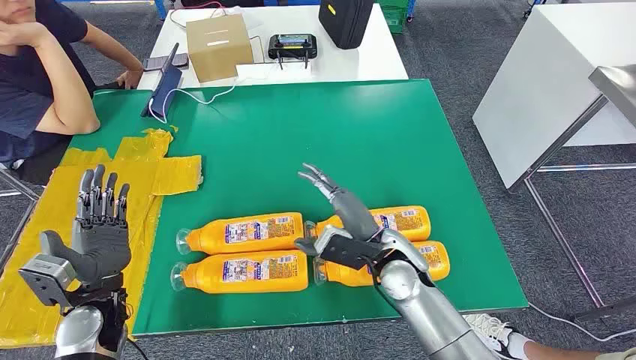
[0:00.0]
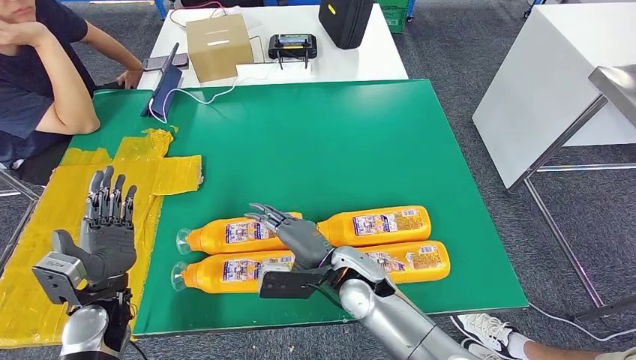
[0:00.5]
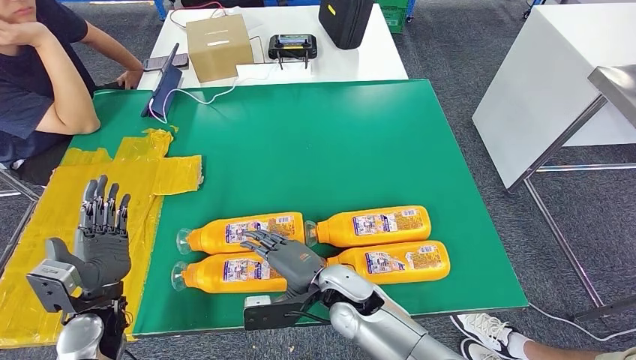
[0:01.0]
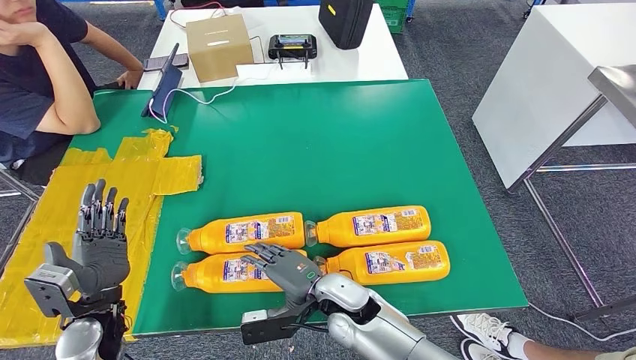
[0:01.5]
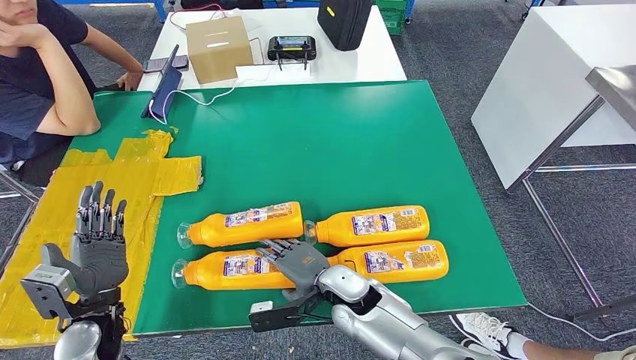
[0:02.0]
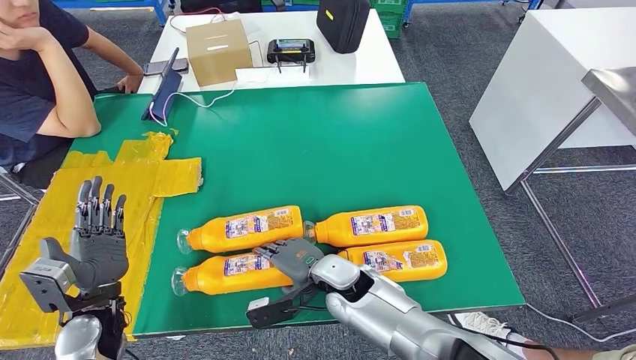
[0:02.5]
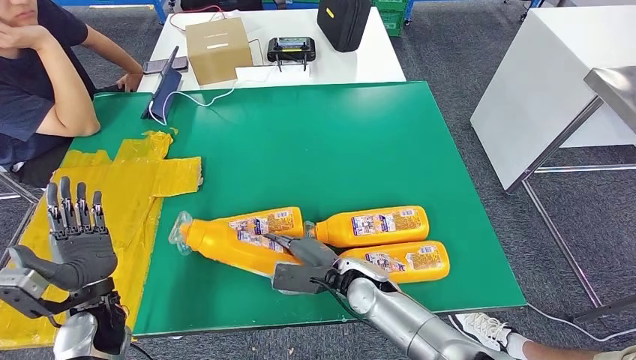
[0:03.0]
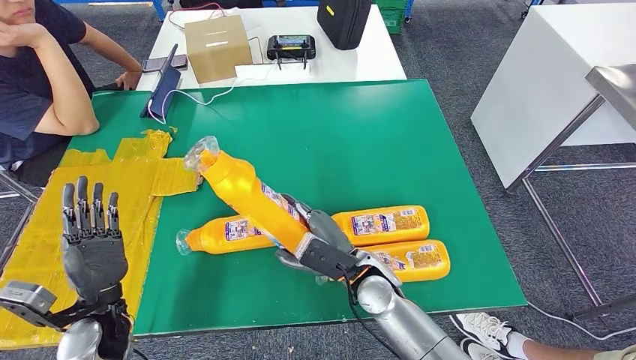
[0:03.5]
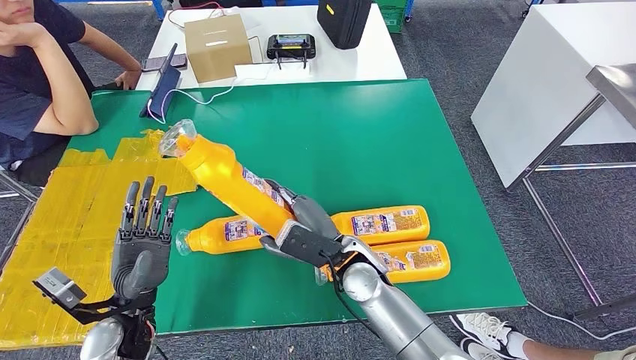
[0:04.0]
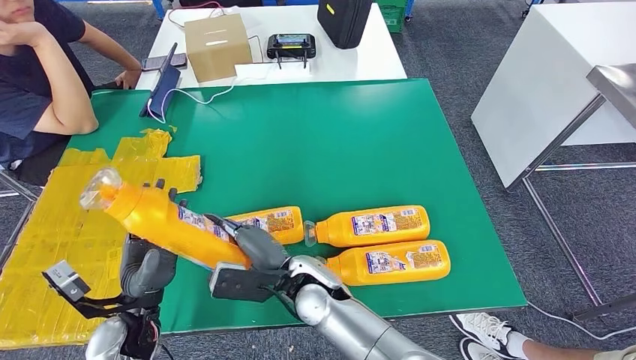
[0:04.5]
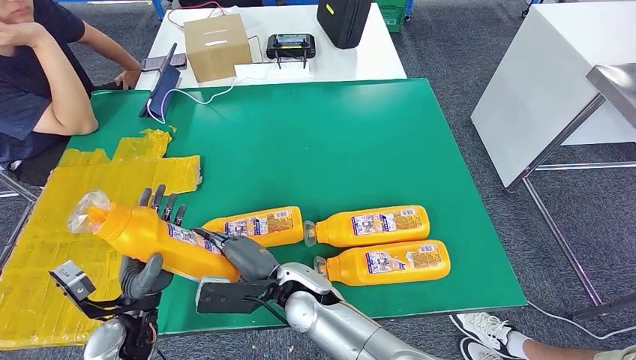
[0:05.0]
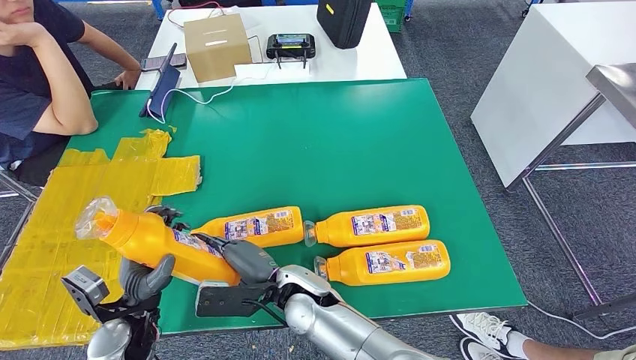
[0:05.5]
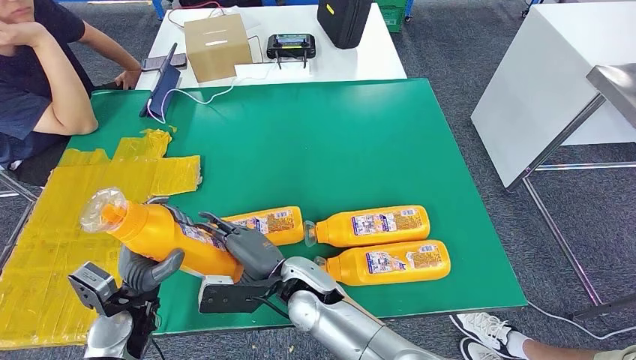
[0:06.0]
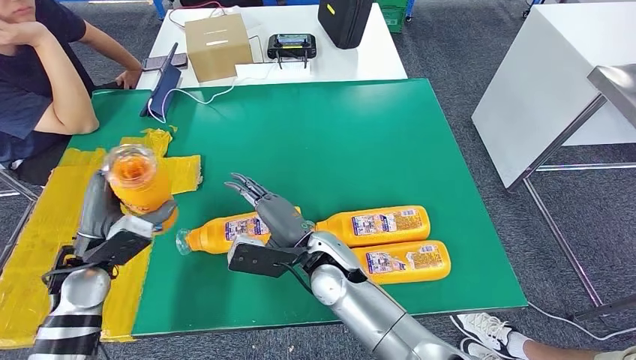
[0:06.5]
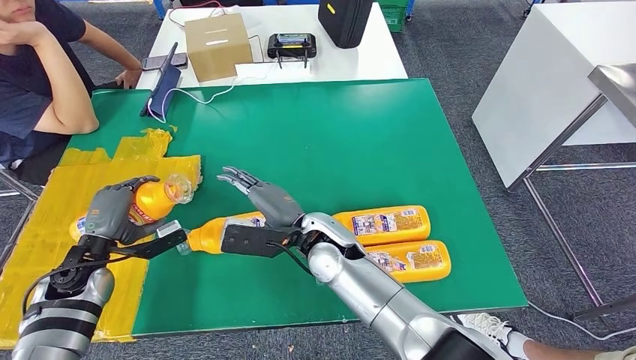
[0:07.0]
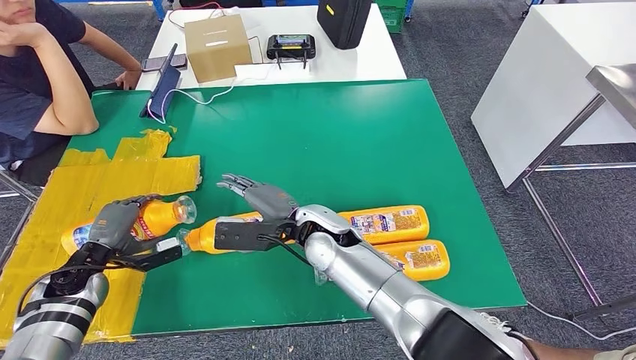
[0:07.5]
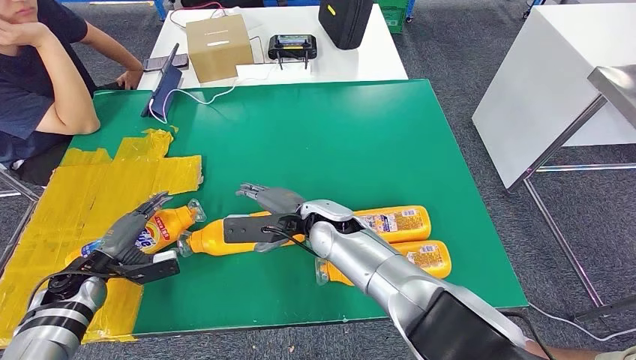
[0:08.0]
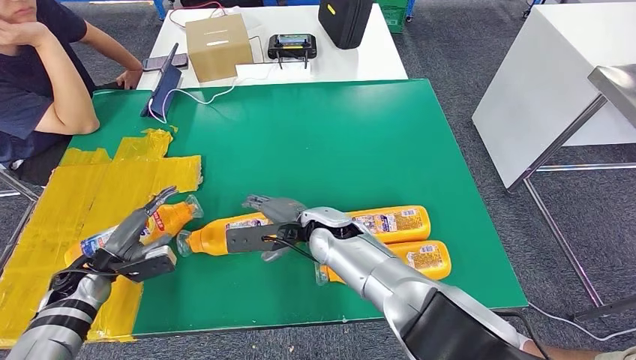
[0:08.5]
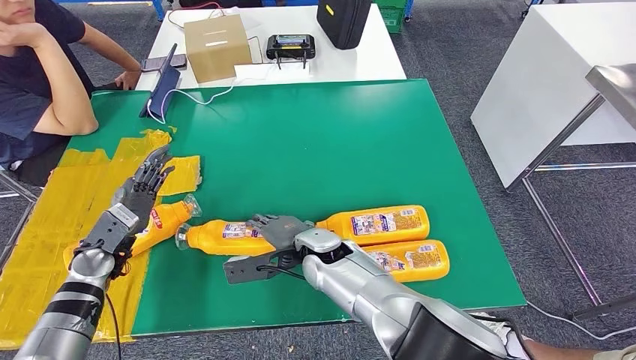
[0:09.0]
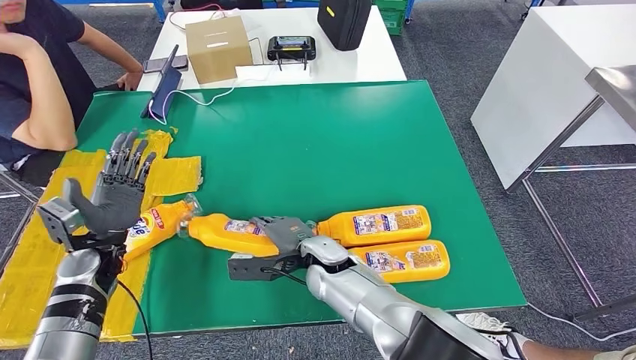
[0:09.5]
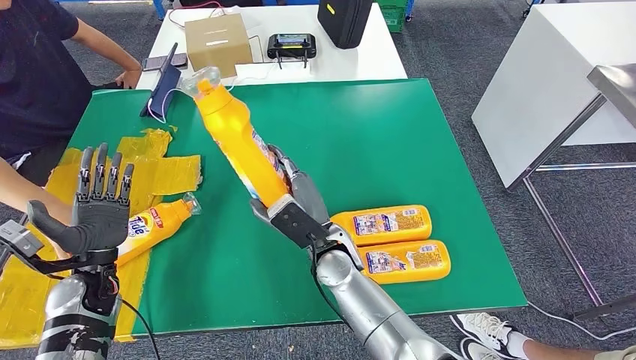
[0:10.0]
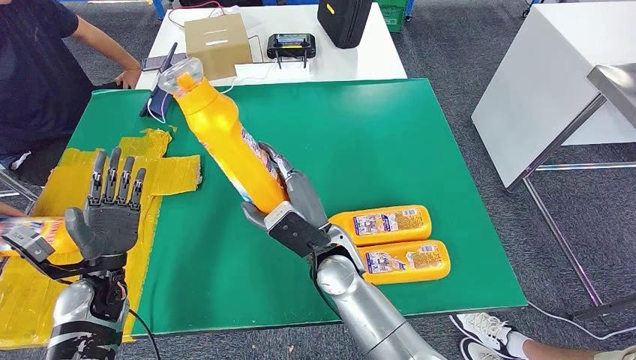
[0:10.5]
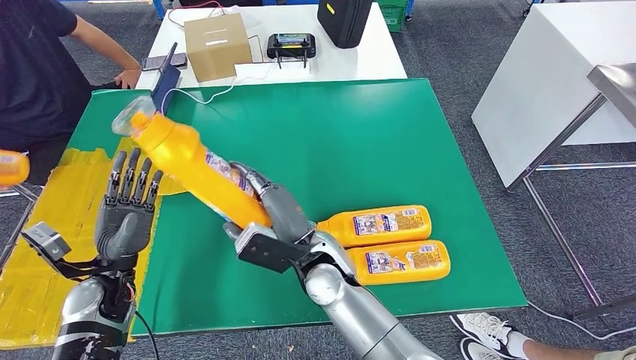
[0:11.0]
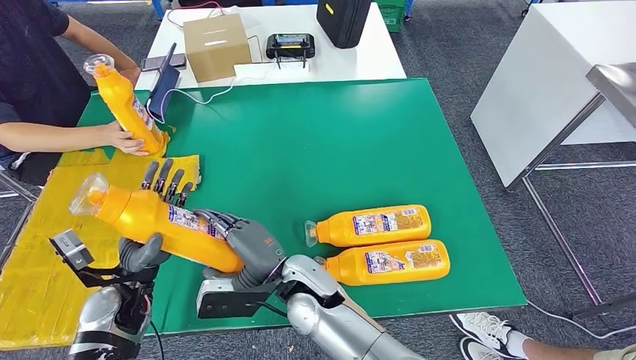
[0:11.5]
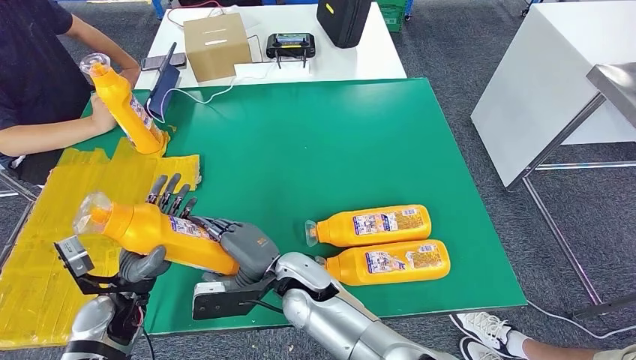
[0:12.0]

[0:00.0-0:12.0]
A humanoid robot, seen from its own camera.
Step, 0:00.0 to 0:03.0: Take the fast-moving consumer goods bottle from the table.
Step, 0:04.5 to 0:08.0: Flip the fast-moving consumer goods bottle to the front side.
Step, 0:09.0 to 0:11.0: Pick up the fast-moving consumer goods bottle from the table.
0:04.0 to 0:06.0: The right hand moves to the left, some 10 cm.

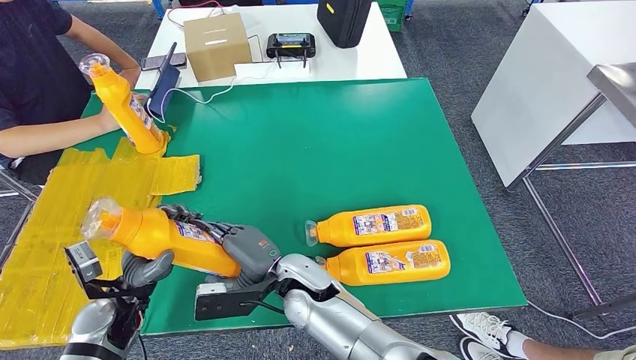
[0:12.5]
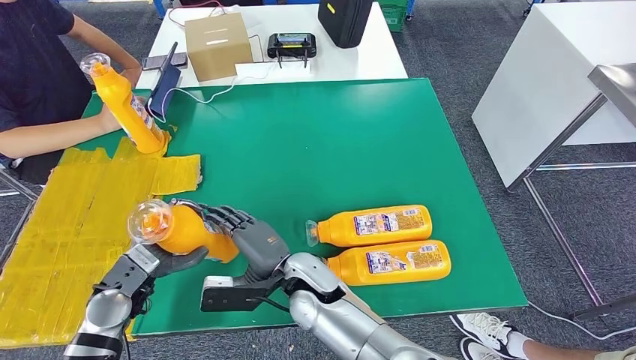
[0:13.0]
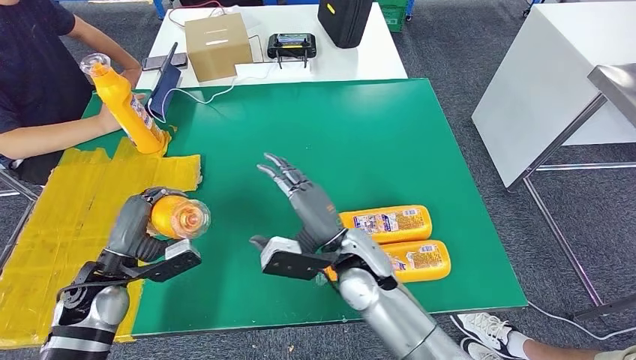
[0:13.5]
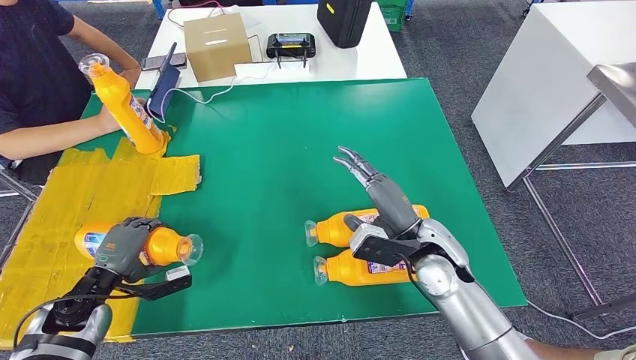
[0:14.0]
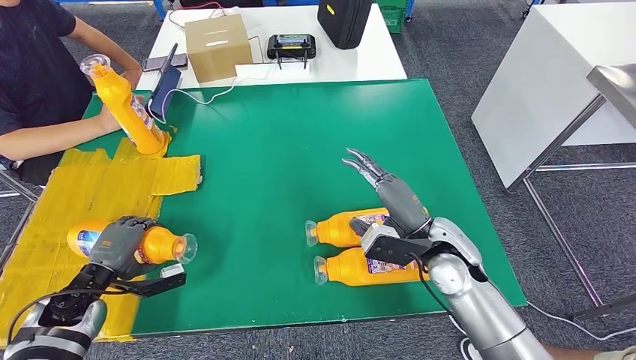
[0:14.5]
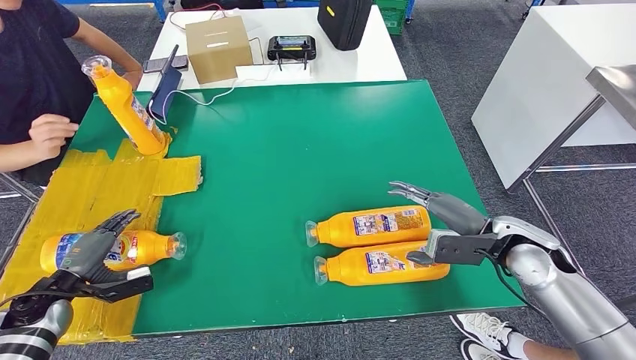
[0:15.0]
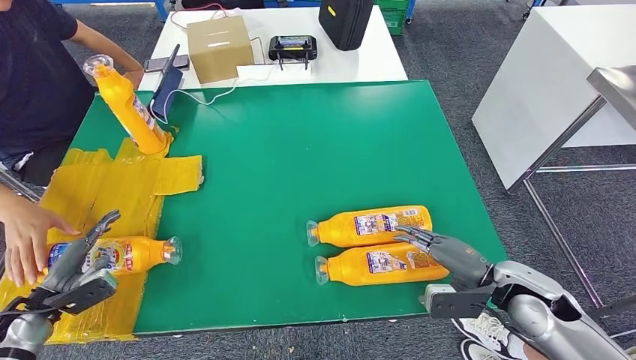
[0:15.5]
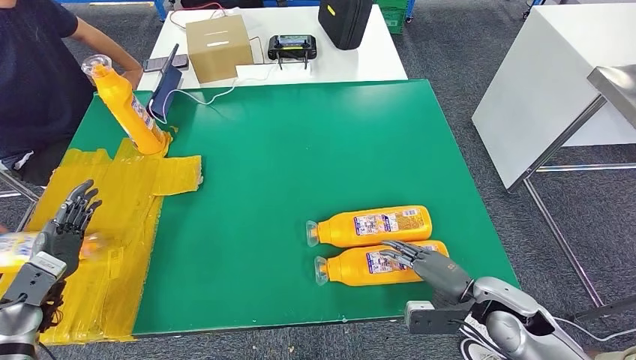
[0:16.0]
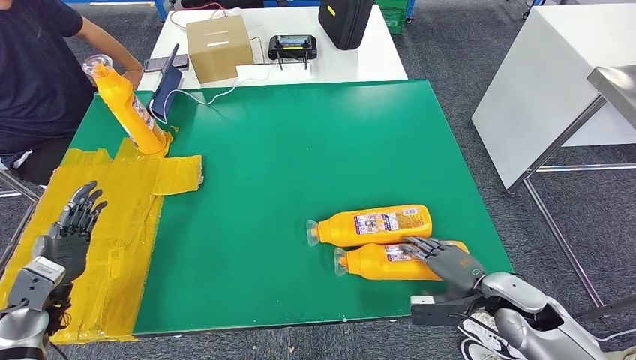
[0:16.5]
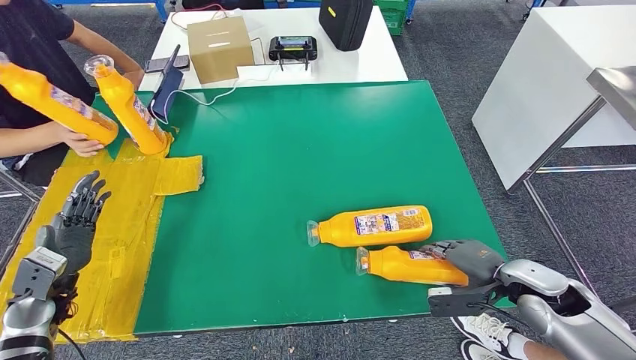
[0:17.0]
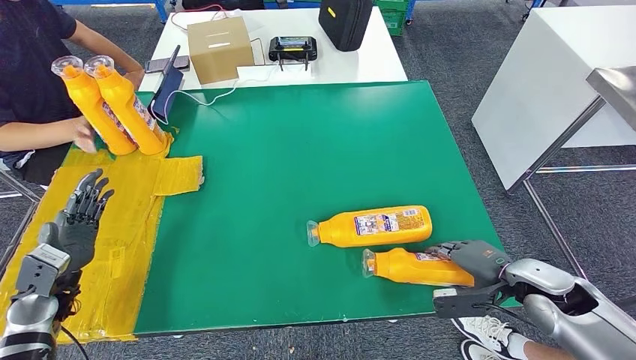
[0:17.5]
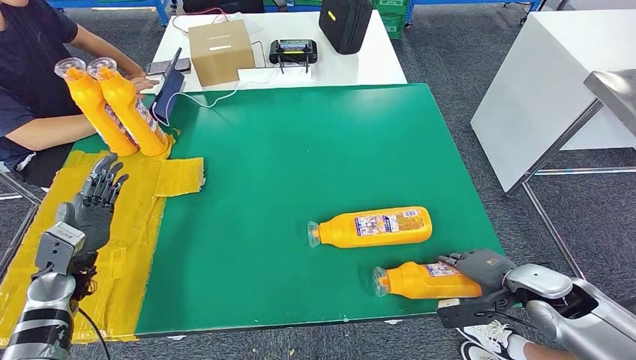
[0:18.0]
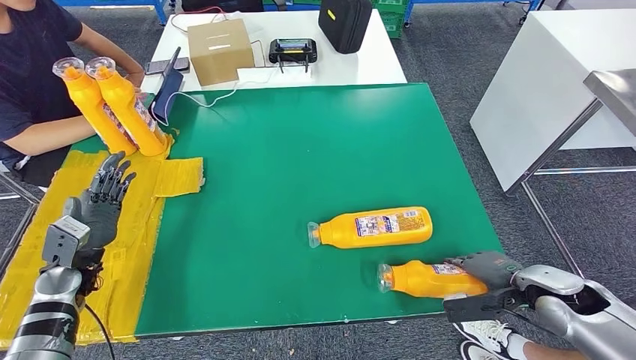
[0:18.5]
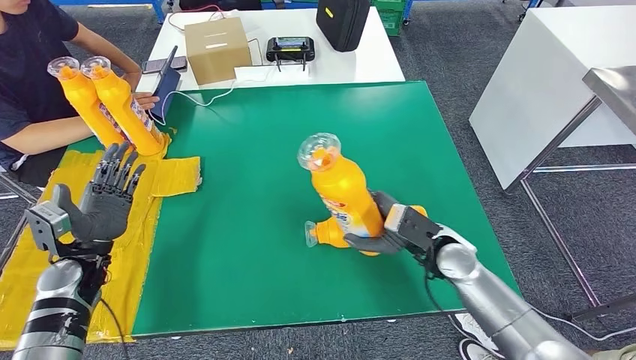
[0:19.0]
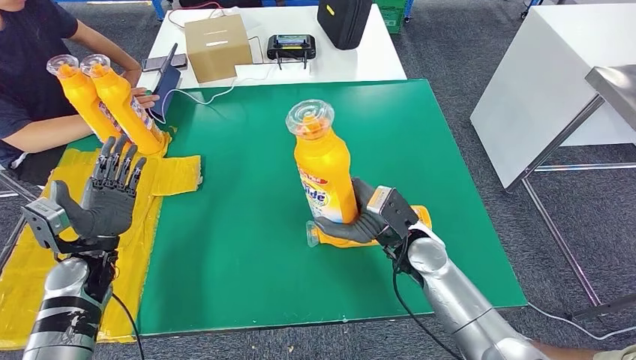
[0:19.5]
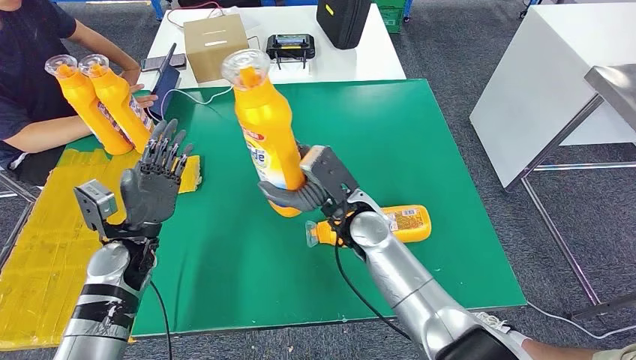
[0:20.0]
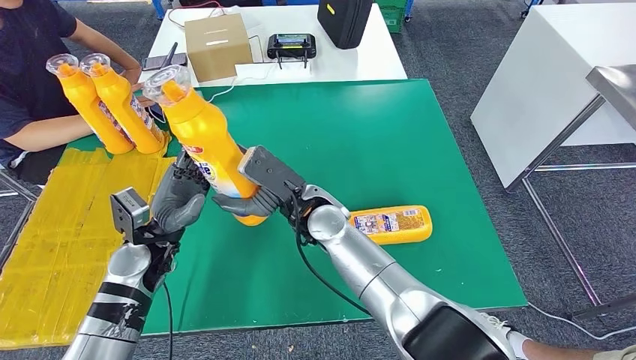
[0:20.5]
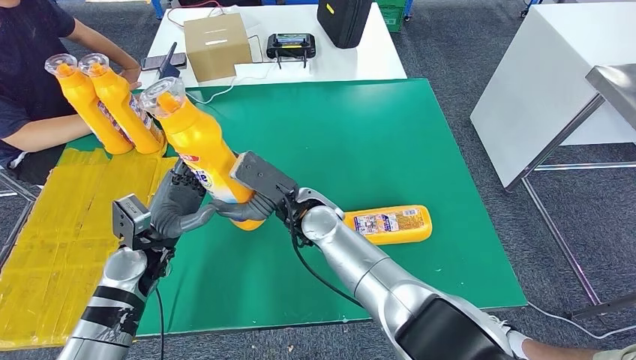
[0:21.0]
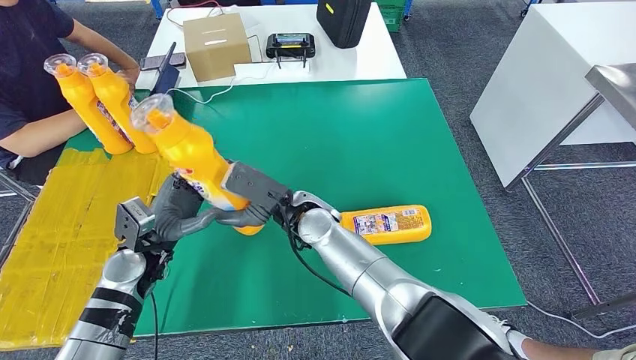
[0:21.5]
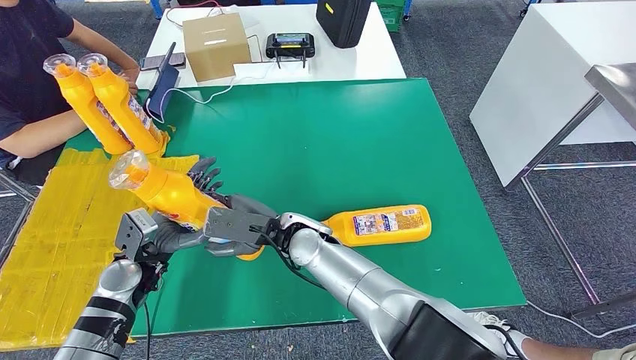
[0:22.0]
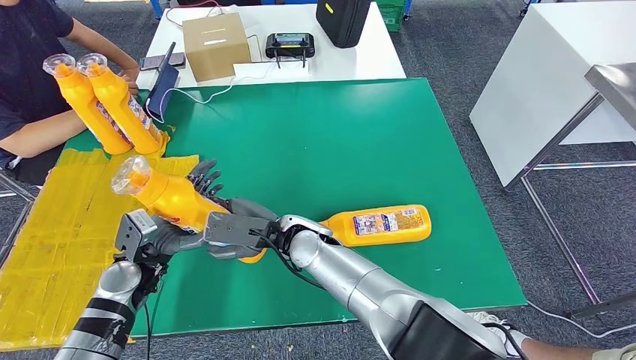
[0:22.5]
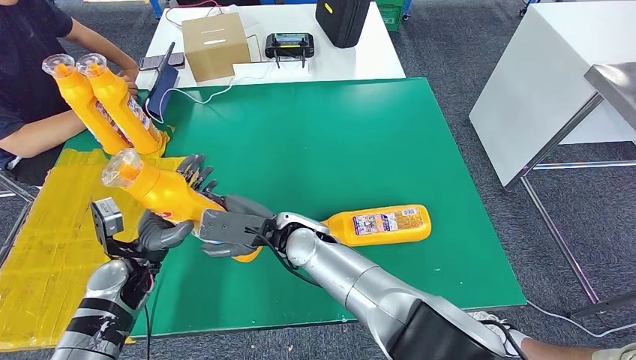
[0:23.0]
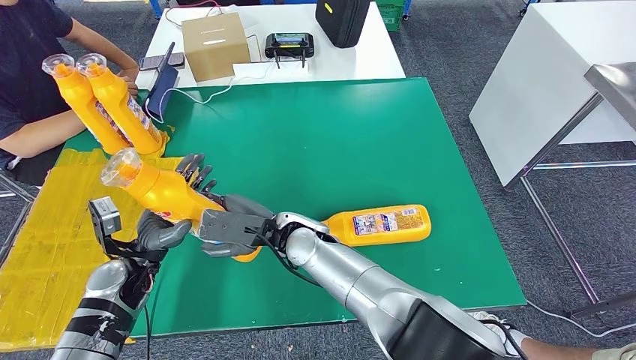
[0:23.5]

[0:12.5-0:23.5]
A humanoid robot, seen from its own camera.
Step, 0:12.5 to 0:15.0: Flip the fast-moving consumer goods bottle to the front side.
Step, 0:17.5 to 0:18.5: Pick up the fast-moving consumer goods bottle from the table.
0:14.5 to 0:16.0: The left hand travels to the left by some 5 cm, while the right hand is displaced to the right, backward and downward by approximately 15 cm.
0:21.5 to 0:23.5: There are only small adjustments of the hands.
